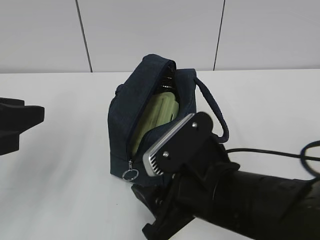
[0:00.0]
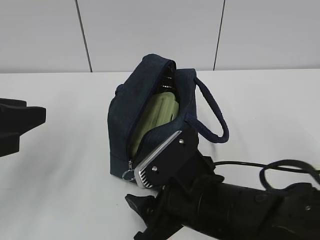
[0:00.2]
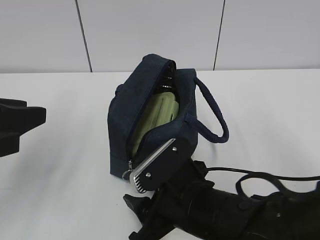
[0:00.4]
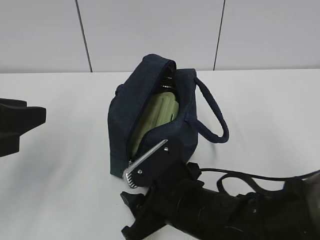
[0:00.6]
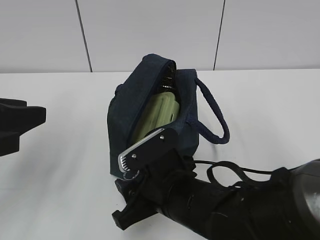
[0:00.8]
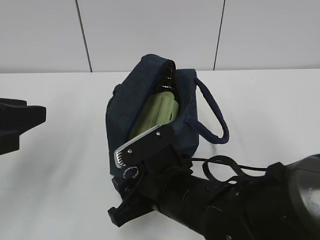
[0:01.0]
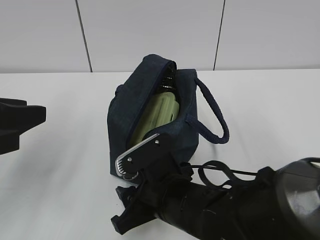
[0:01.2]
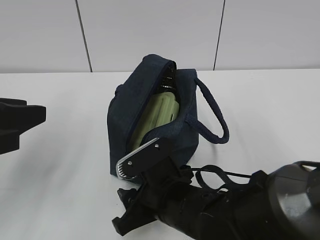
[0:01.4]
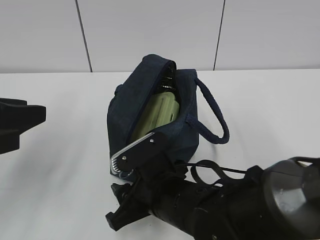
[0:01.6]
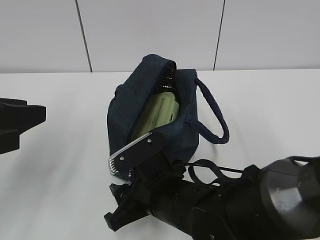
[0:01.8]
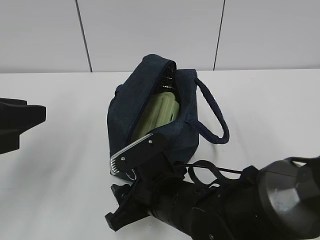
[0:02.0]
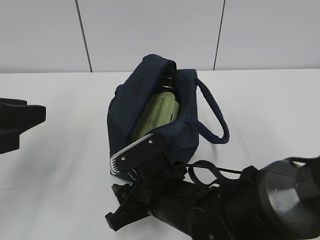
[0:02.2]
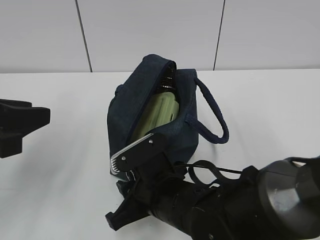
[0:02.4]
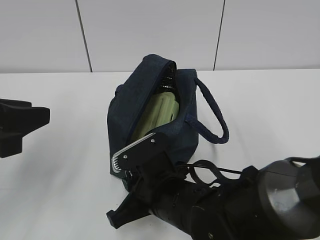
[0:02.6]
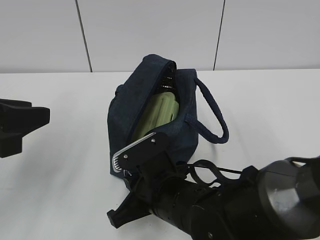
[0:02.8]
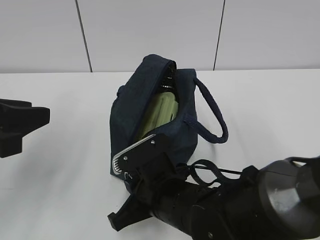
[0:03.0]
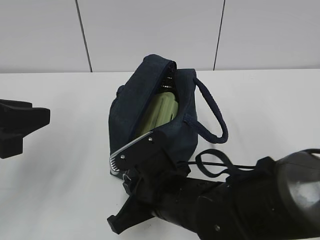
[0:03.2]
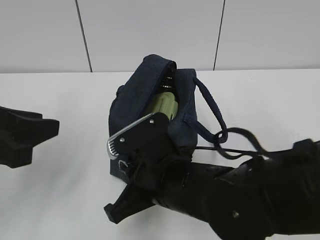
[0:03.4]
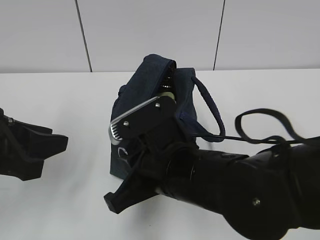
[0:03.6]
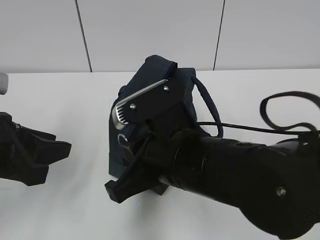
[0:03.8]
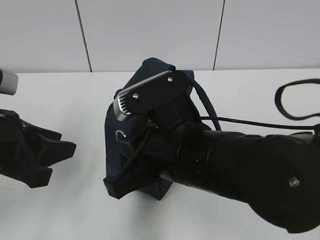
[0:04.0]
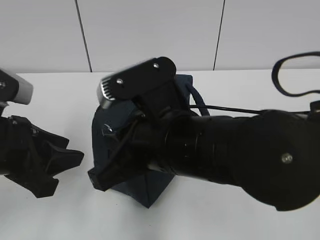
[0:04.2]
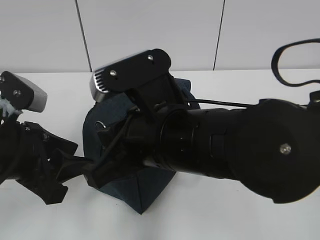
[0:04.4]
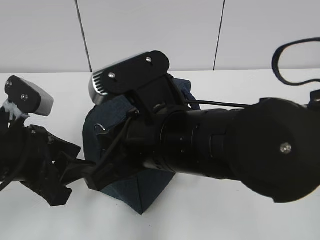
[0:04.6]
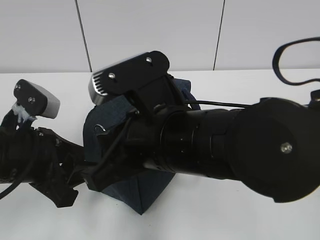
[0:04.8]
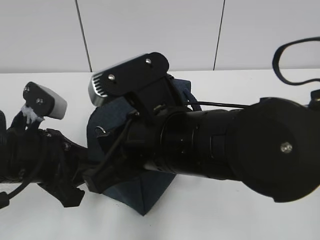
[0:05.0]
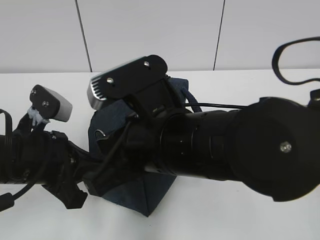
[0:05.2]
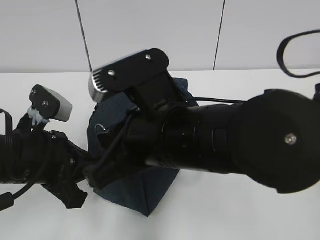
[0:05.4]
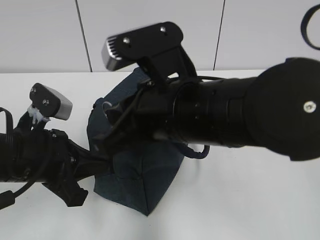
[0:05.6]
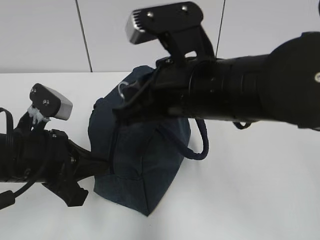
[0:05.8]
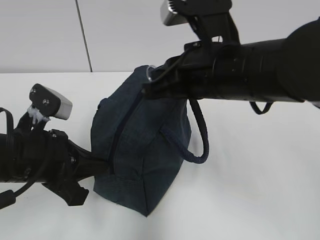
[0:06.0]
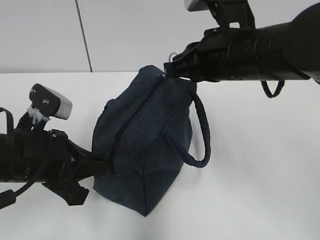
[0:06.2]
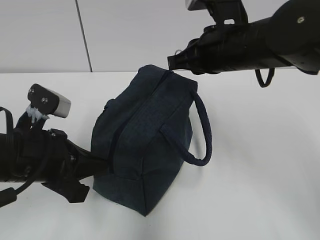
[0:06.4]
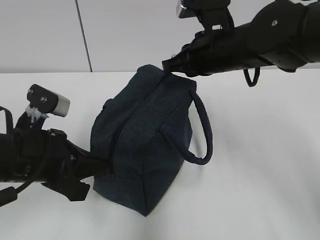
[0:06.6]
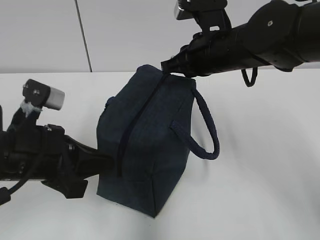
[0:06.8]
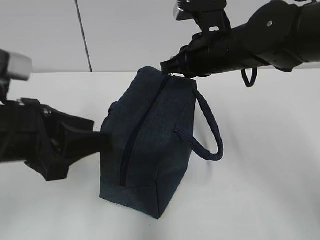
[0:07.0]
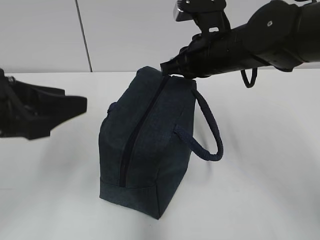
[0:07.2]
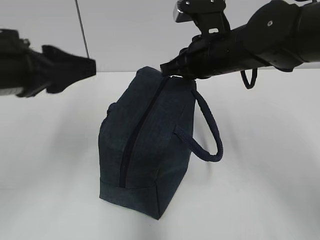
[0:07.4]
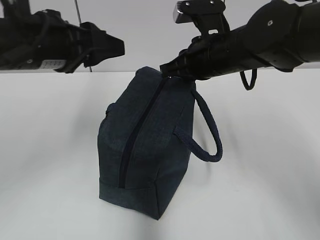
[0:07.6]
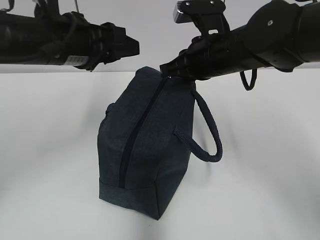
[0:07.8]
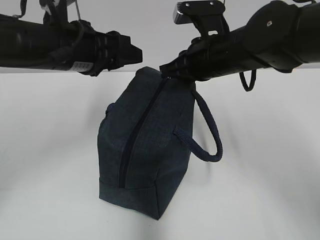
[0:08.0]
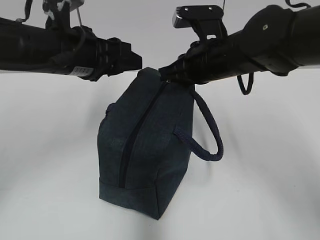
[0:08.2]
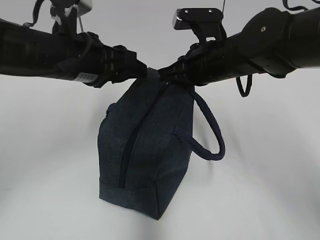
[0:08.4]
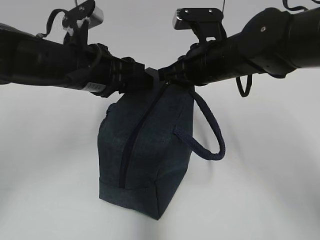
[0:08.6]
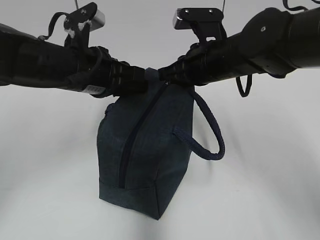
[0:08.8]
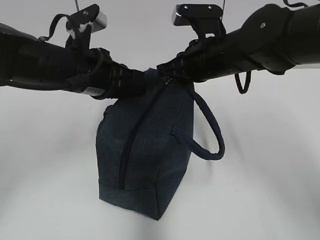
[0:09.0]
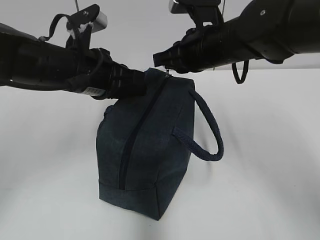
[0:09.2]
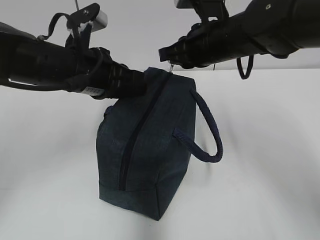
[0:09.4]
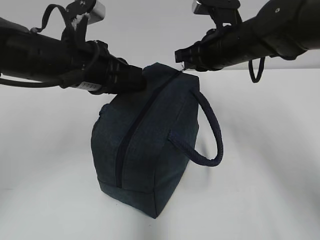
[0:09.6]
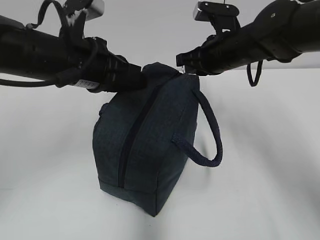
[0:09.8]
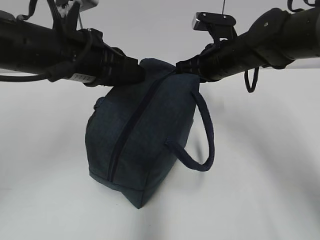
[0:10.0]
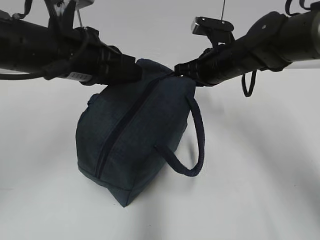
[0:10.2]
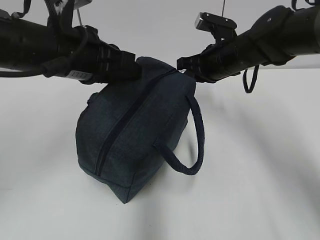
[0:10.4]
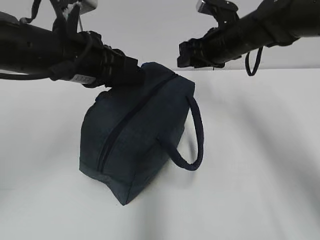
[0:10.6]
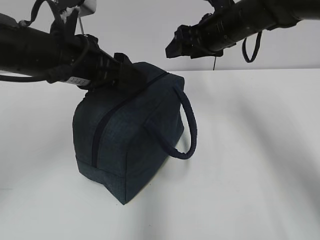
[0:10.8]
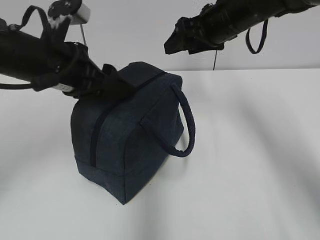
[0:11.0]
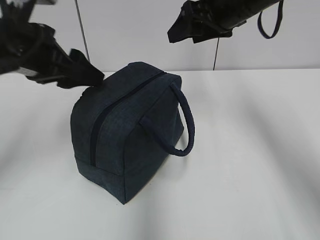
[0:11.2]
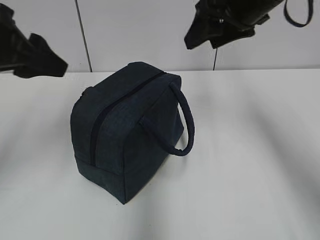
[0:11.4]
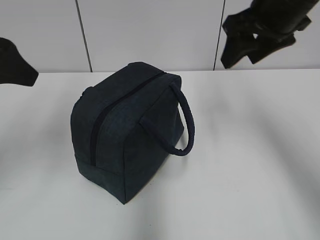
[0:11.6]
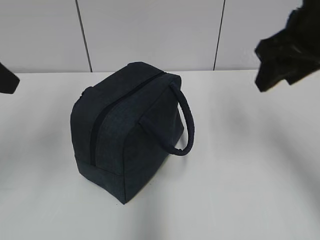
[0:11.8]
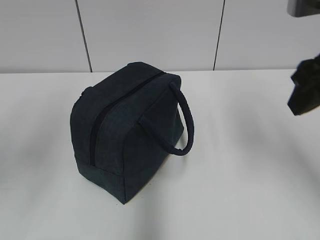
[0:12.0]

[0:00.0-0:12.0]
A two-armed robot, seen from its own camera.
Step, 0:00.0 to 0:06.8: Grab the lunch bag with your left hand.
Step, 0:07.0 to 0:10.4: Pull the zipper with your right hand.
Step, 0:10.6 to 0:11.0: Grab the lunch bag with your left hand.
0:00.0 to 0:01.6: The right gripper moves downward and to the left, approximately 10 cm.
0:01.6 to 0:03.0: The right gripper closes up.
0:03.0 to 0:04.4: The right gripper travels upward by approximately 15 cm. Meanwhile the left gripper heads downward, covering about 5 cm.
0:04.4 to 0:06.0: The right gripper shifts about 10 cm to the right and forward; the left gripper closes its fingers.
0:06.0 to 0:07.6: The left gripper shifts roughly 15 cm upward and forward, and opens its fingers; the right gripper moves forward, about 10 cm.
0:07.6 to 0:09.0: The left gripper moves downward, about 5 cm, and closes.
0:09.0 to 0:10.4: The right gripper shifts roughly 5 cm forward.
0:10.4 to 0:12.0: The left gripper moves to the left, backward and upward, roughly 20 cm, and opens its fingers. Meanwhile the right gripper heads backward and upward, covering about 25 cm, and opens up.

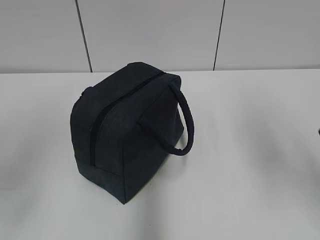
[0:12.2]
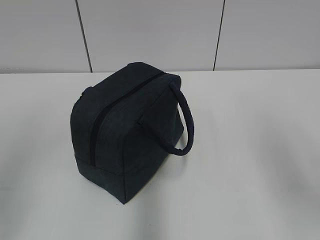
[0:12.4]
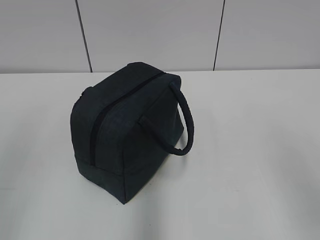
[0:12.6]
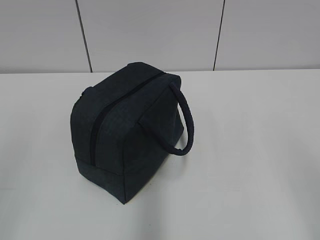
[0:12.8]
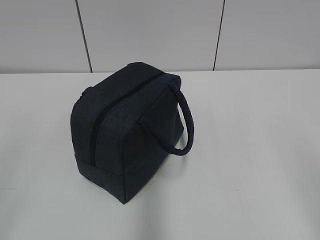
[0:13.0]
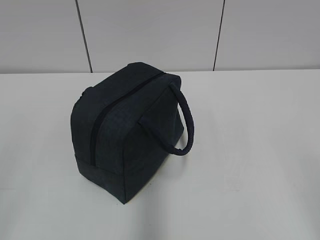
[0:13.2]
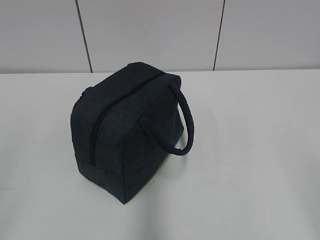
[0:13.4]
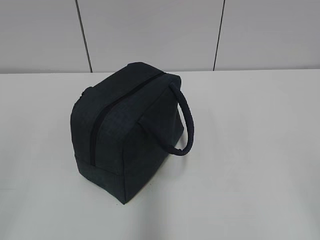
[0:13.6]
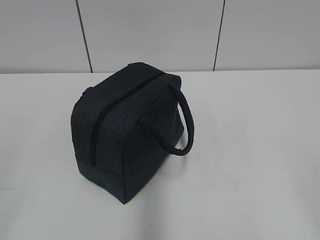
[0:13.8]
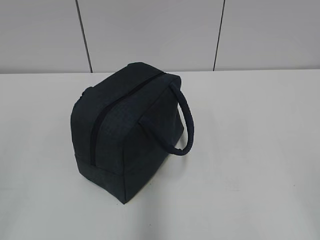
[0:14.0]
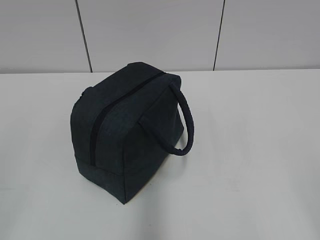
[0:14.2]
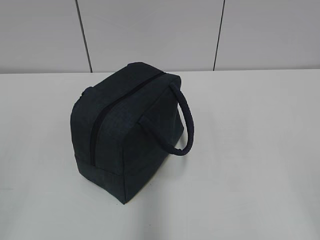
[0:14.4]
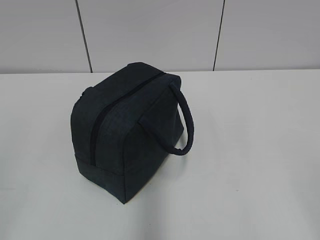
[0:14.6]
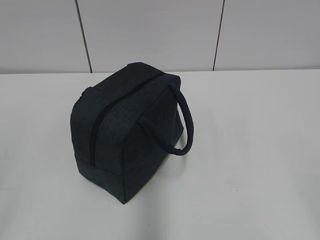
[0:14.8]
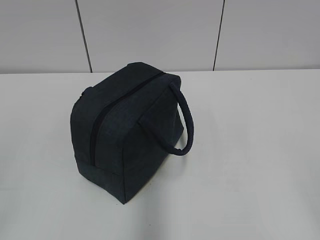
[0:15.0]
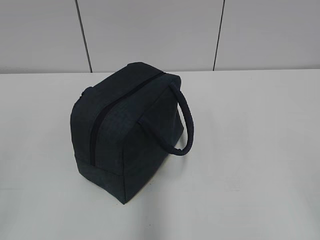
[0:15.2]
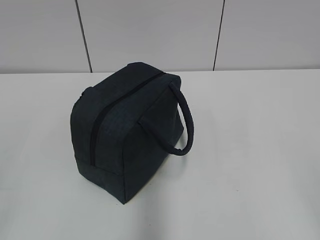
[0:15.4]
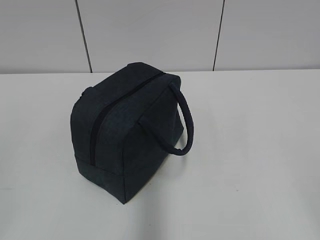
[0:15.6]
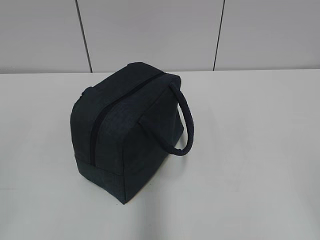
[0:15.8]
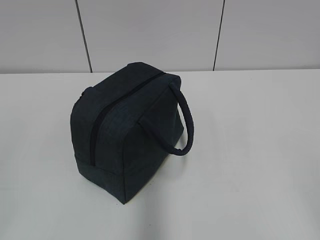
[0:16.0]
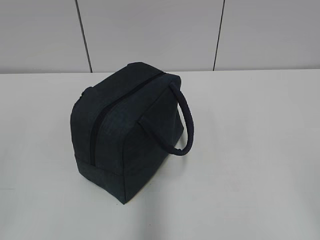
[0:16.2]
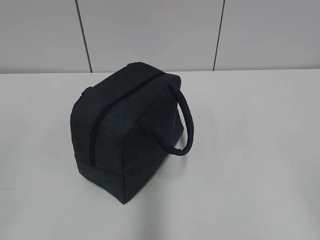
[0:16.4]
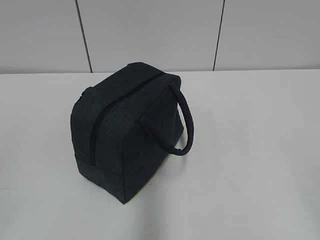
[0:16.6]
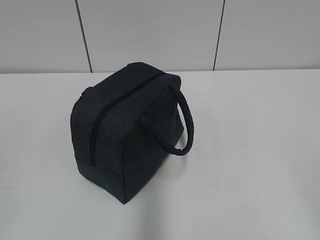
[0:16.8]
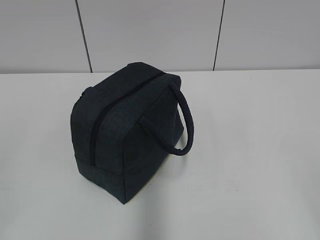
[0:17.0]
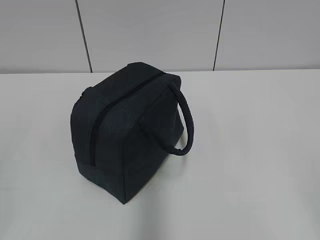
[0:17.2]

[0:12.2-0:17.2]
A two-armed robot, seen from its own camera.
0:12.2 to 0:13.8: The left gripper is displaced backward and downward by some 15 cm. The right gripper moves backward, about 20 cm.
0:15.6 to 0:17.2: Both grippers stay put.

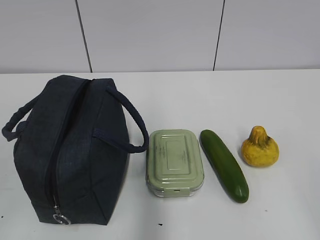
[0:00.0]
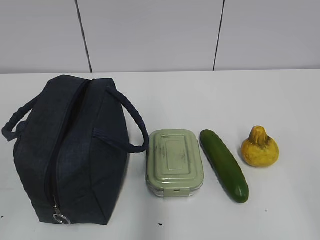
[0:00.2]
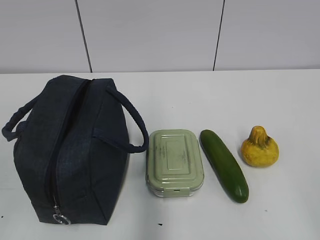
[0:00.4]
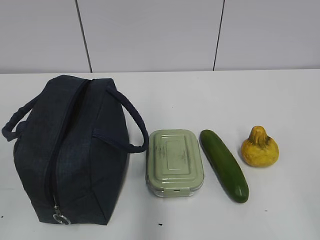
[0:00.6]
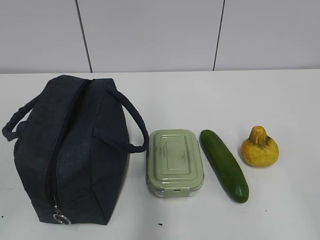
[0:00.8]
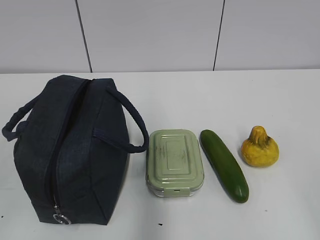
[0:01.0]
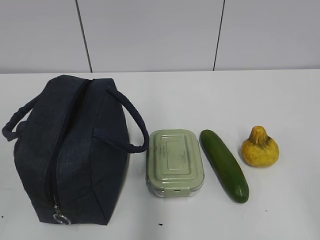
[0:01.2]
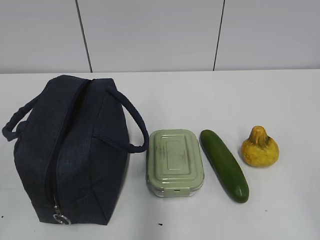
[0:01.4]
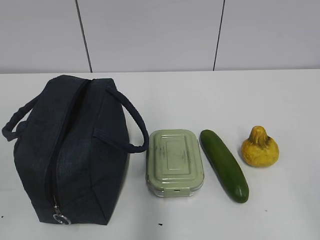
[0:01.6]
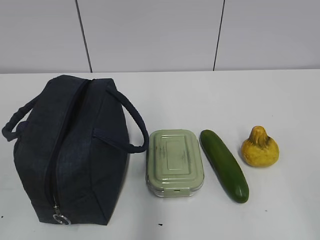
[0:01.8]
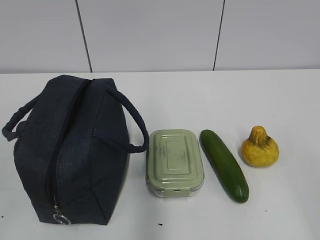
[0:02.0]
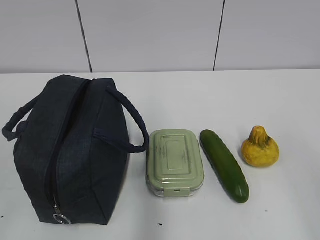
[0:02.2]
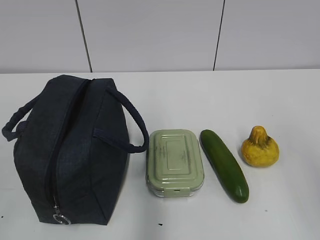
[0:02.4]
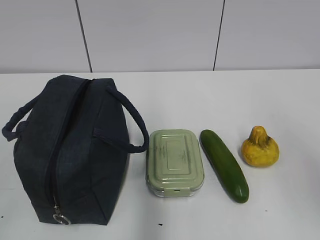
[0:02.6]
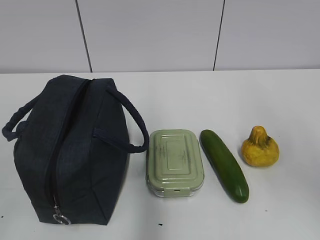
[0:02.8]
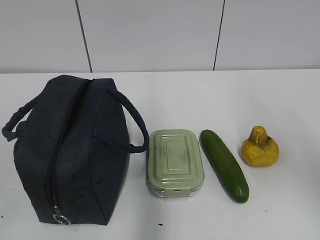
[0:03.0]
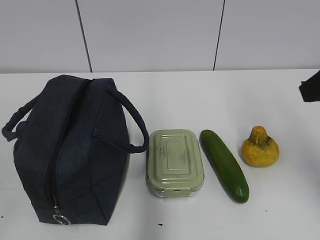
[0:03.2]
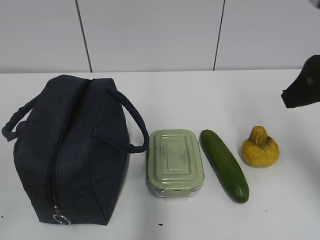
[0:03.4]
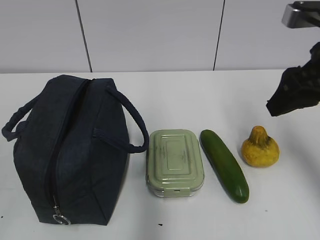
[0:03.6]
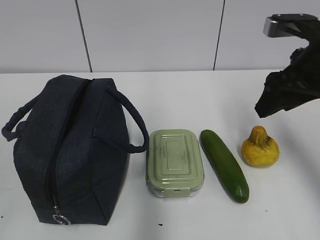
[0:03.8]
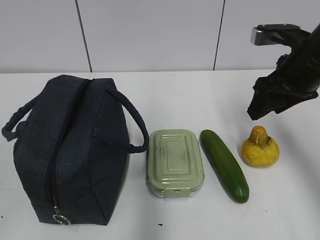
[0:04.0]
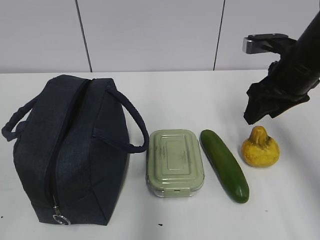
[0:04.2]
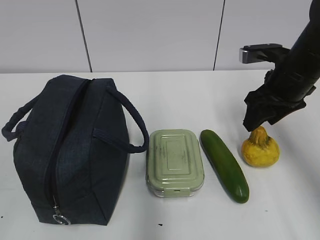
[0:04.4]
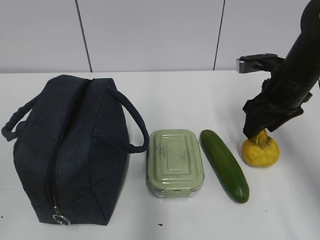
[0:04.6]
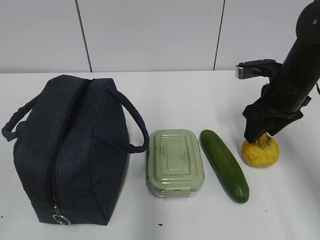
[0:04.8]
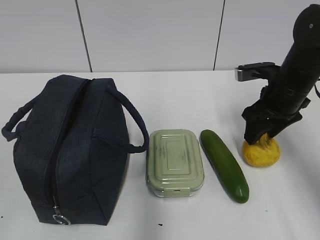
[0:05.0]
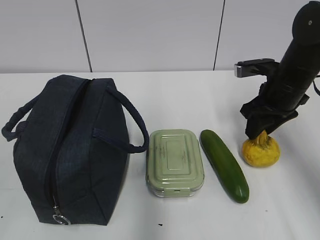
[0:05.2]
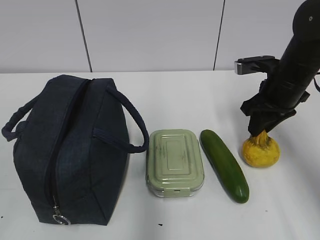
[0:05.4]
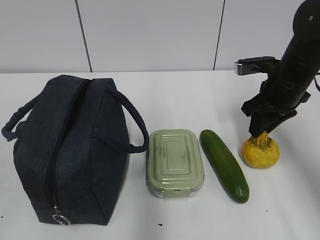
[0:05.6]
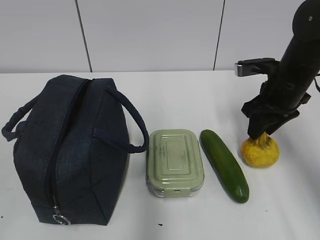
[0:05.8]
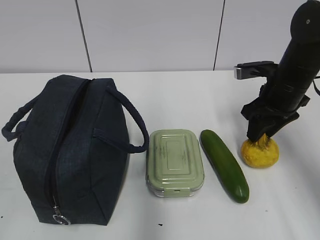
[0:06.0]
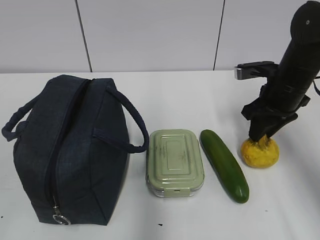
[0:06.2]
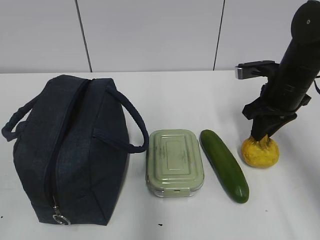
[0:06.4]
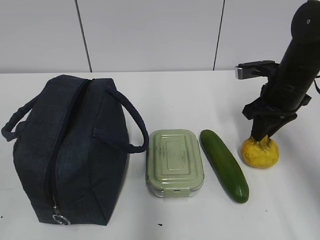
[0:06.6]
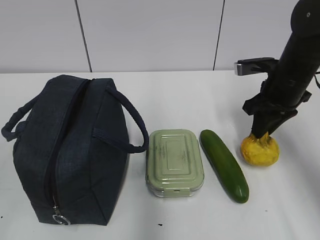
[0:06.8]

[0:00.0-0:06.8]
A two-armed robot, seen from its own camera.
Step, 0:00.0 to 0:05.4: Grab the pear with your right hand.
0:01.4 to 0:02.8: The right gripper is displaced forward and upward by some 15 cm.
0:02.8 to 0:04.0: The right gripper is displaced forward and downward by some 25 cm.
0:04.0 to 0:05.4: The right gripper goes some 5 cm downward, and closes.
0:05.4 to 0:06.8: There are only small adjustments of the grippers.
